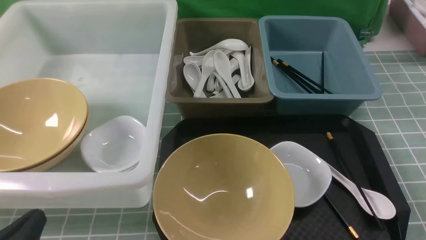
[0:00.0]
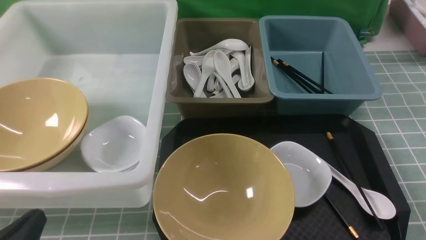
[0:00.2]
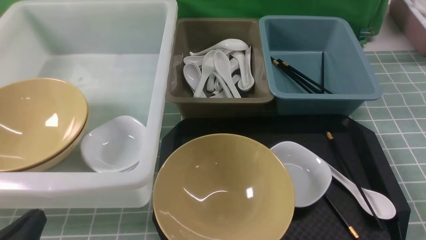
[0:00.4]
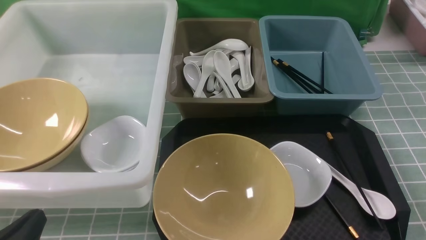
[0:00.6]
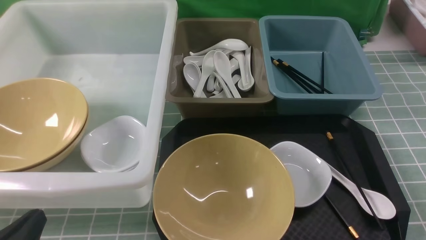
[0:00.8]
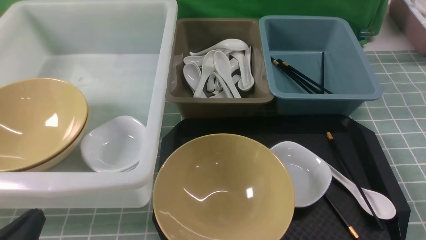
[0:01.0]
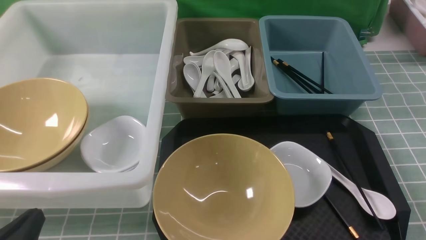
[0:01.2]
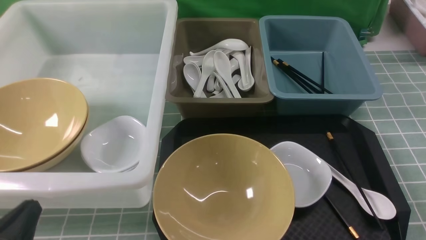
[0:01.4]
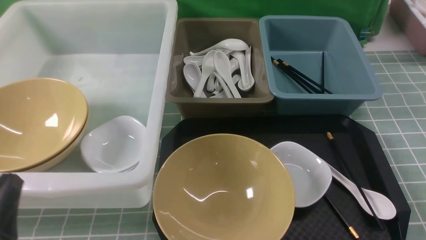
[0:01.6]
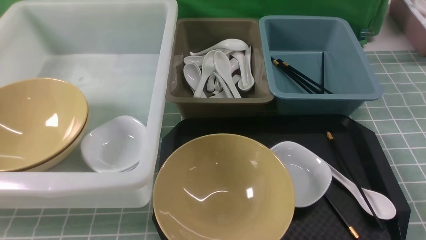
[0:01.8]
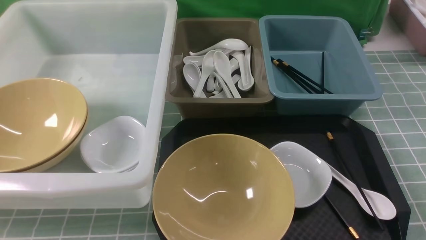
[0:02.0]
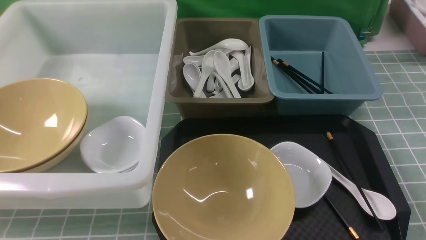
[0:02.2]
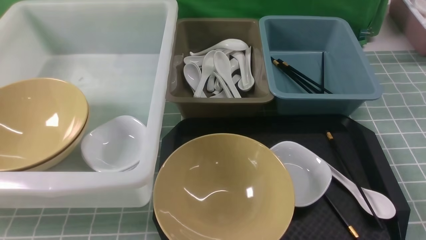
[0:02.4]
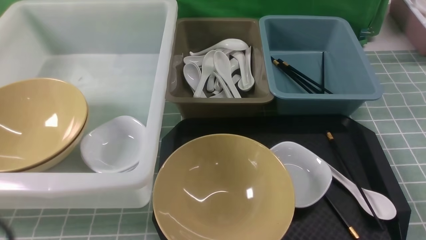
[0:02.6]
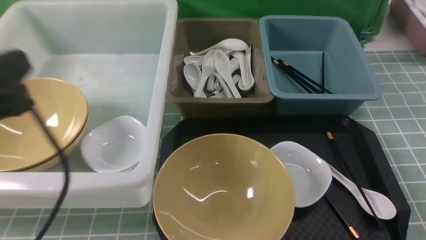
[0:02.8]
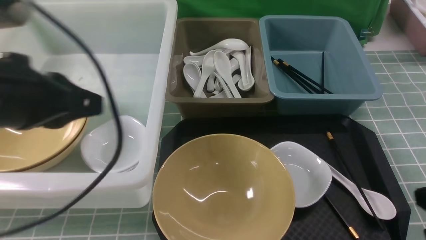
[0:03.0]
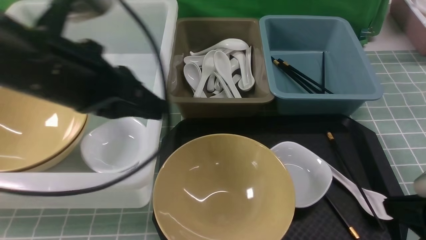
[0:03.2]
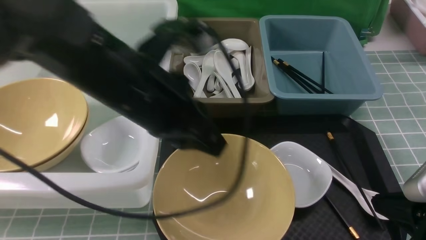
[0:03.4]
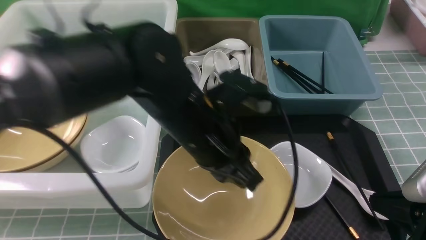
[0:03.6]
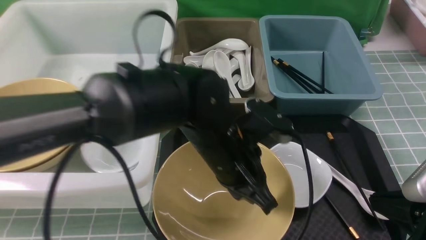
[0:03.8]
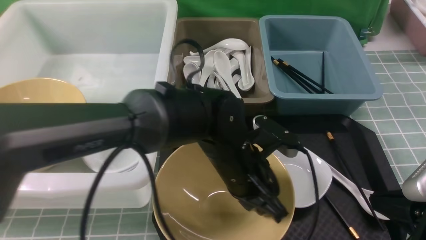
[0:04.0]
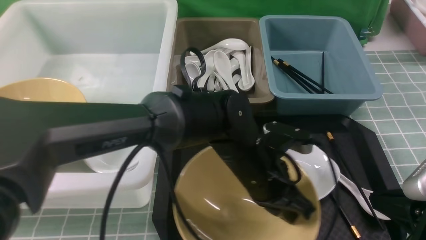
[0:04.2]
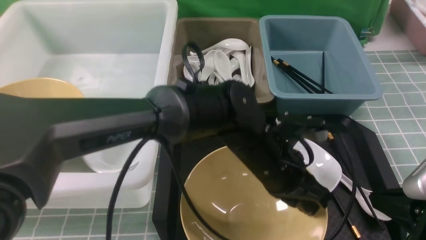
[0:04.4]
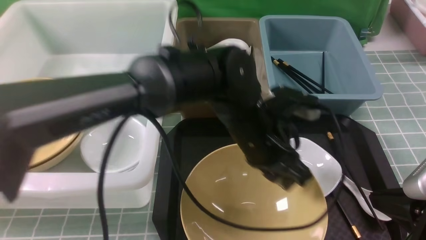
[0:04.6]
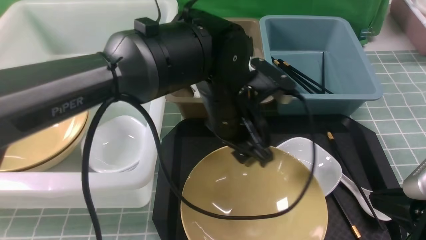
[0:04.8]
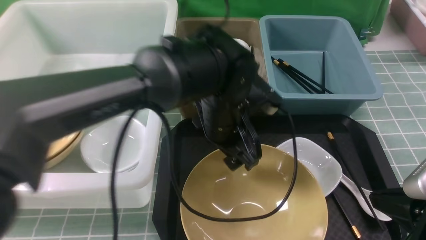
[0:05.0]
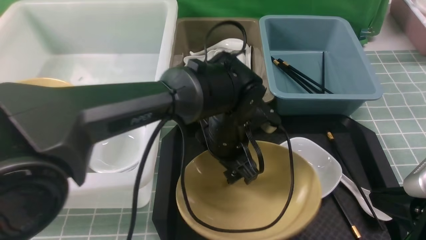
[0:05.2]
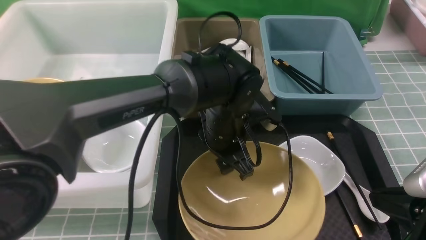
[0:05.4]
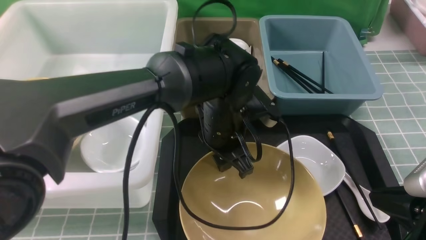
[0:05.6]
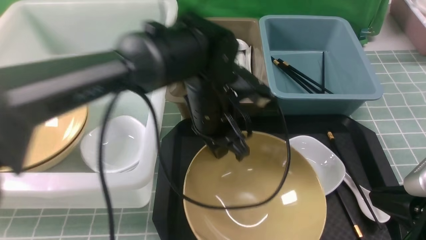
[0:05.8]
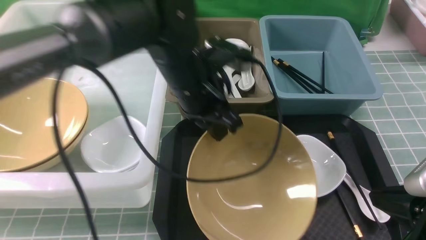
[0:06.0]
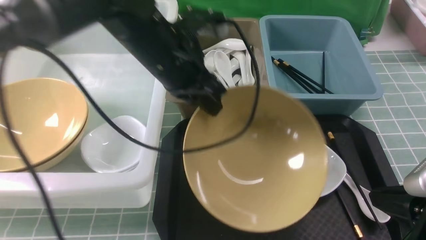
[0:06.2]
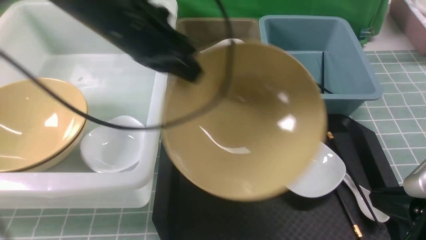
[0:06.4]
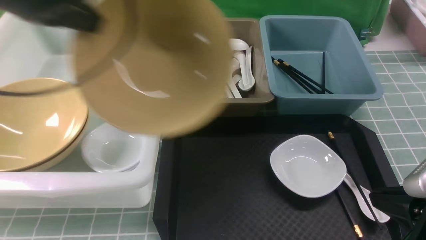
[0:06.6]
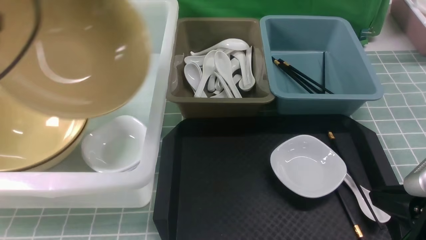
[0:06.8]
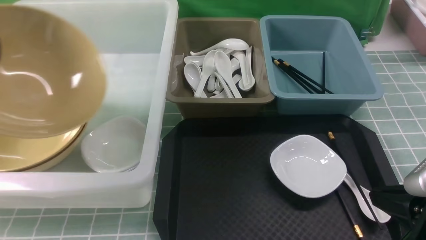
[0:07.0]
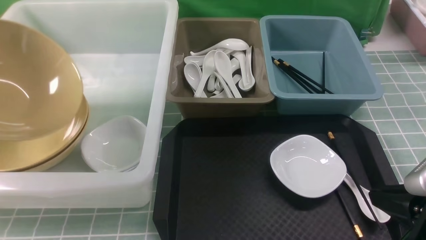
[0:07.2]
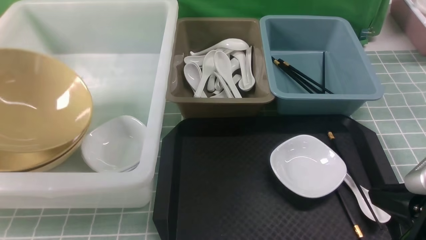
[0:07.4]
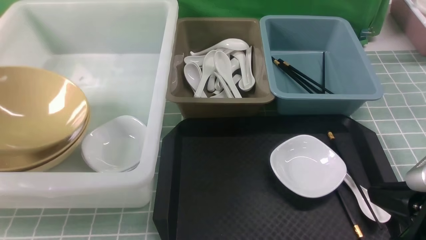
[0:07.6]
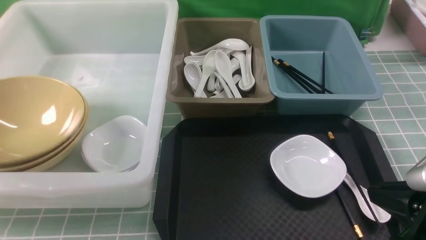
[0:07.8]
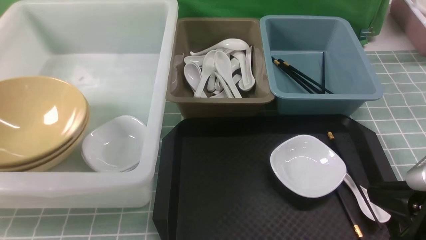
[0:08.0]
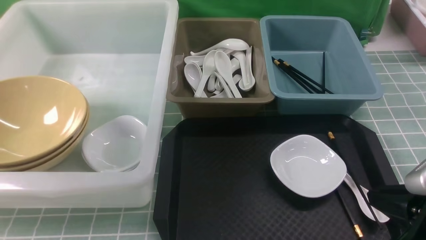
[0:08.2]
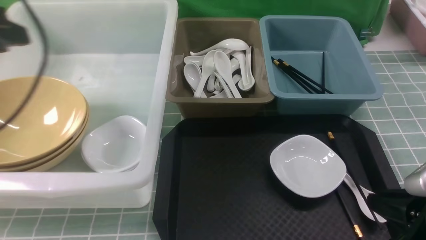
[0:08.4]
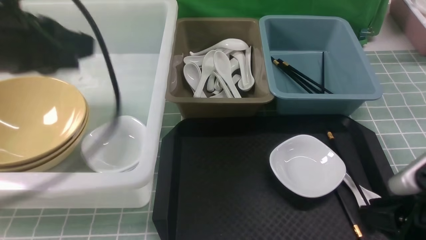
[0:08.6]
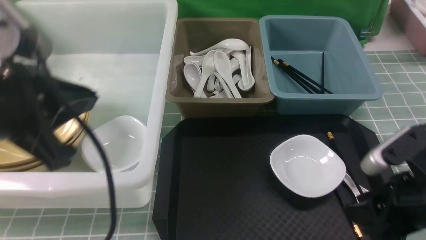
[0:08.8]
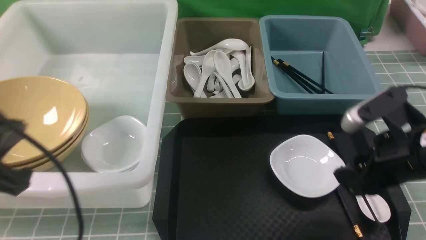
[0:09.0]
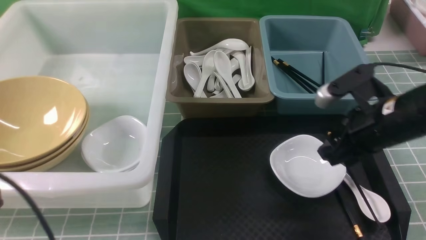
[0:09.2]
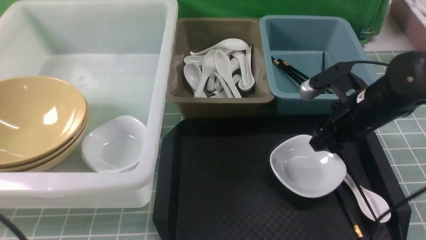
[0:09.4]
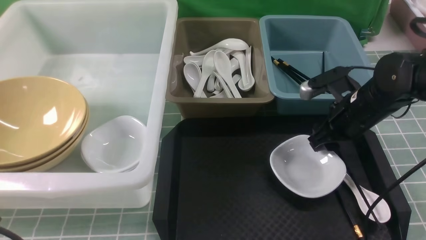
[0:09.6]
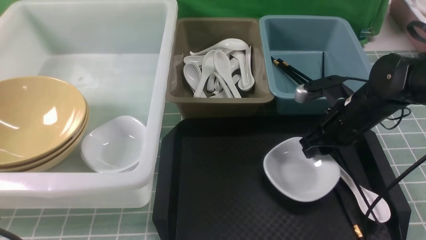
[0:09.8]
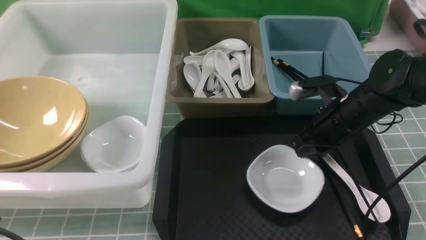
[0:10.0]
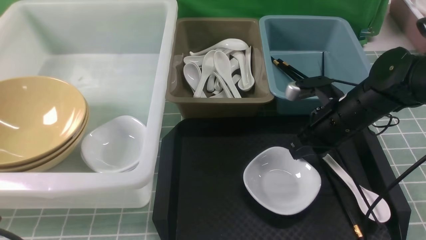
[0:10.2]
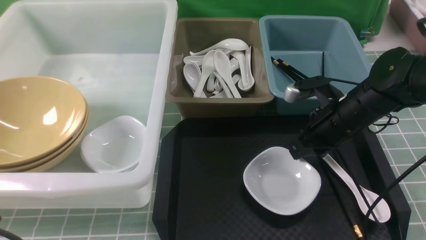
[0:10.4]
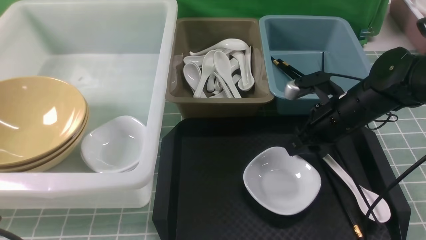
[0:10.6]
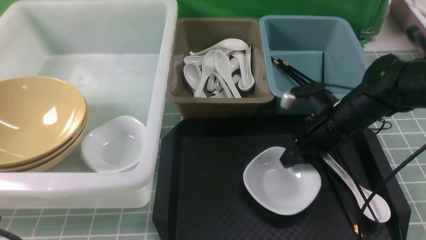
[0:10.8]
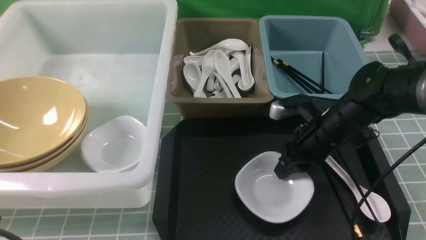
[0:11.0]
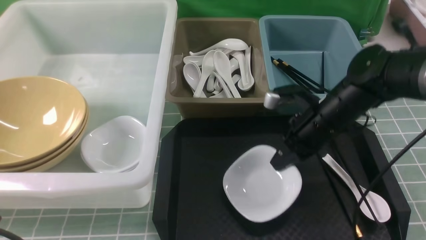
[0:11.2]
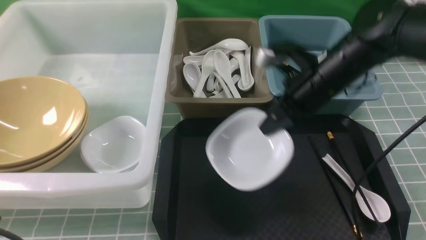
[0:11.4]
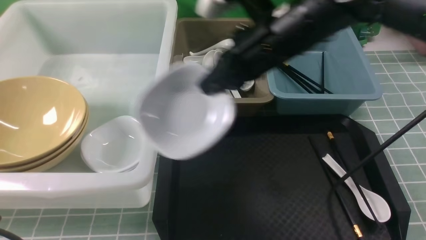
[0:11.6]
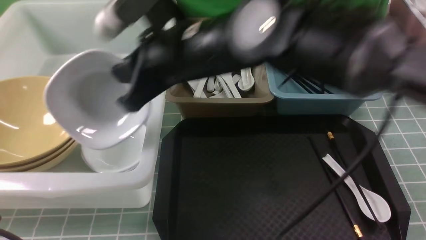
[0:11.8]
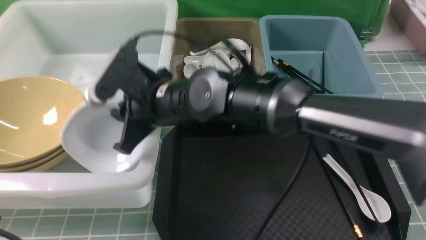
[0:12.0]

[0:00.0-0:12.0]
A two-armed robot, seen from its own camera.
Task of the whole recording: on blue table put chopsticks spoon bowls plates into blue grey white boxes.
Step, 0.0 to 6.0 s: use the left arm to grab the yellow noodle bowl on the left.
Step, 6.2 to 8.0 s: use the left arm to put the noodle bowl into the large storage box on the left.
Step, 8.2 to 11.2 s: use the right arm to grab the plate.
1.6 to 3.0 s: The right gripper heads forward, covering roughly 5 cm, and reaches roughly 10 cm upward, then returns, while the left gripper travels upward and forward by roughly 20 cm.
3.0 to 4.4 s: The left gripper heads to the right and downward, covering approximately 30 cm.
4.4 to 6.0 s: The left gripper moves to the left, upward and forward, approximately 15 cm, and opens and closes again.
6.0 to 7.6 s: The left gripper travels to the left by approximately 35 cm, and opens.
7.6 to 9.0 s: The left gripper goes approximately 20 cm to the right and backward, and closes its fingers; the right gripper moves forward, some 10 cm, and opens up.
9.0 to 10.4 s: The right gripper moves forward and downward, some 15 cm, and closes; the left gripper shifts roughly 10 cm backward and downward.
10.4 to 12.0 s: The right gripper travels to the left by about 25 cm, and opens, then closes again.

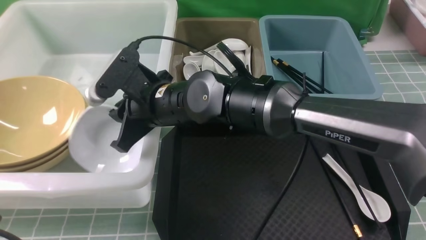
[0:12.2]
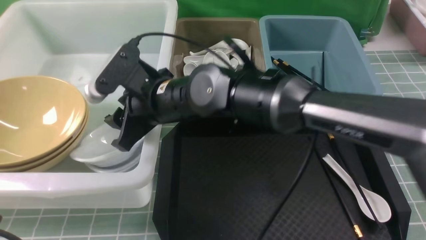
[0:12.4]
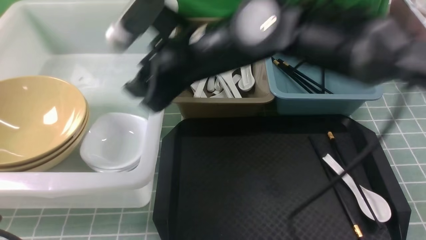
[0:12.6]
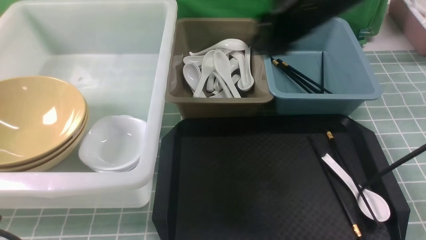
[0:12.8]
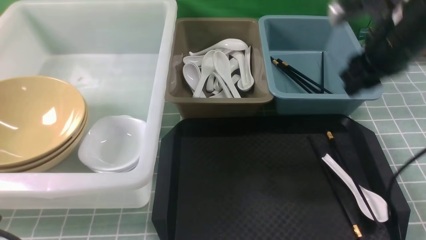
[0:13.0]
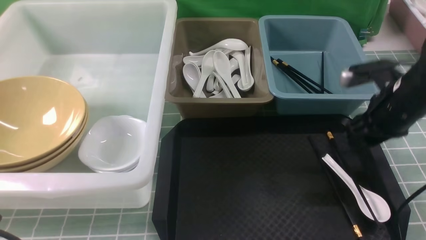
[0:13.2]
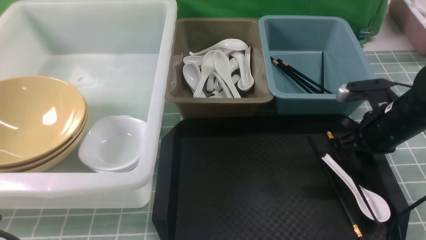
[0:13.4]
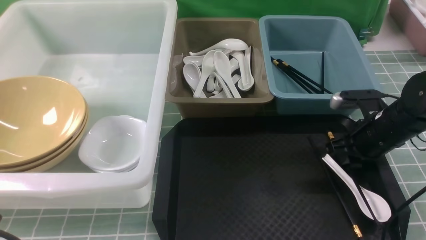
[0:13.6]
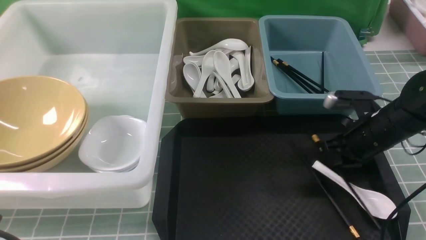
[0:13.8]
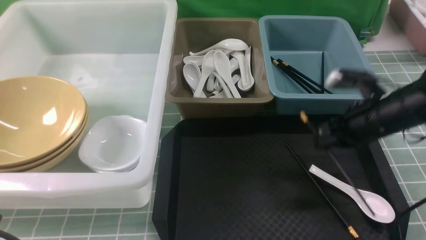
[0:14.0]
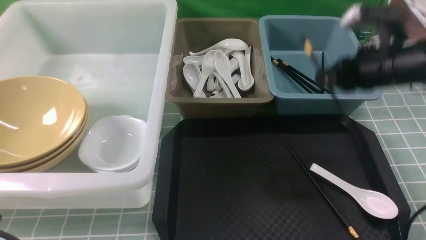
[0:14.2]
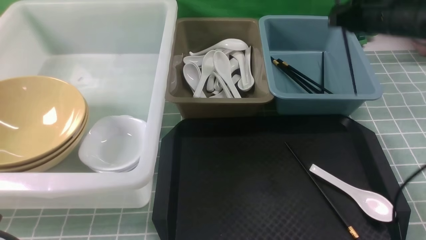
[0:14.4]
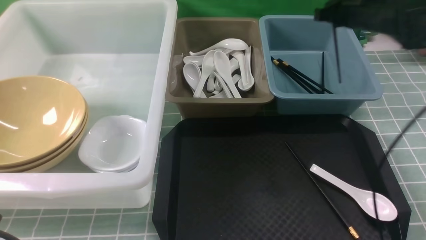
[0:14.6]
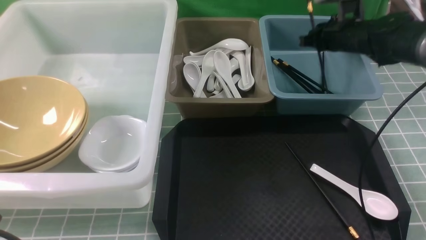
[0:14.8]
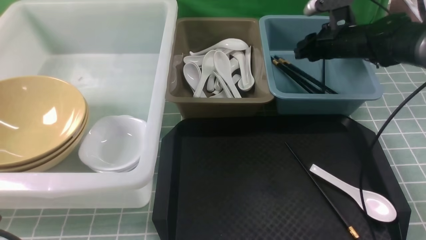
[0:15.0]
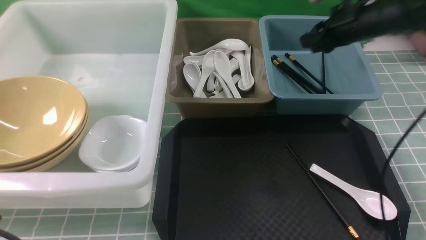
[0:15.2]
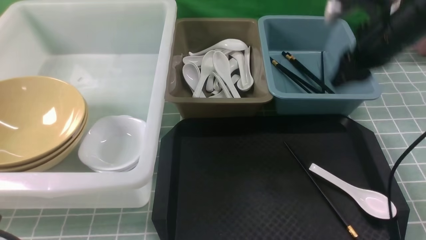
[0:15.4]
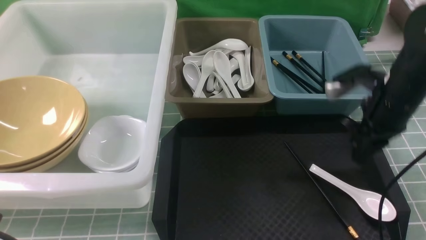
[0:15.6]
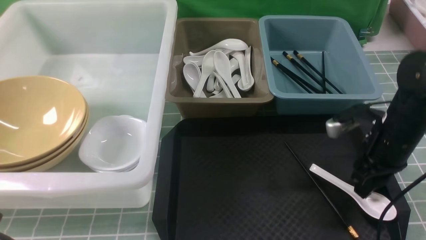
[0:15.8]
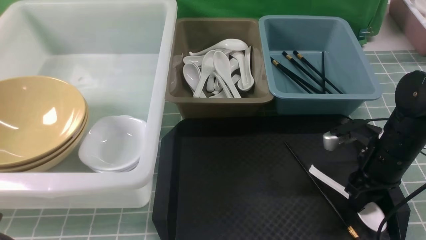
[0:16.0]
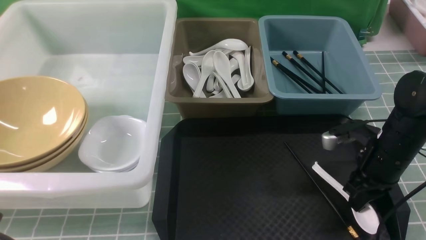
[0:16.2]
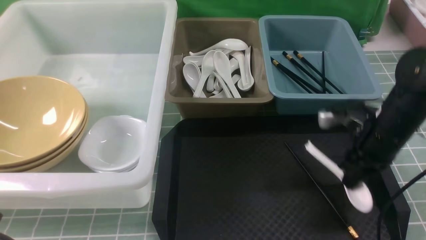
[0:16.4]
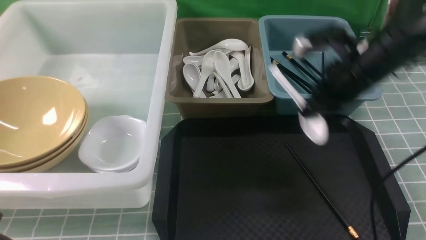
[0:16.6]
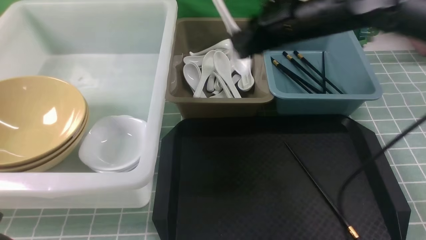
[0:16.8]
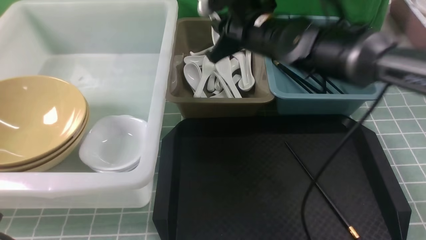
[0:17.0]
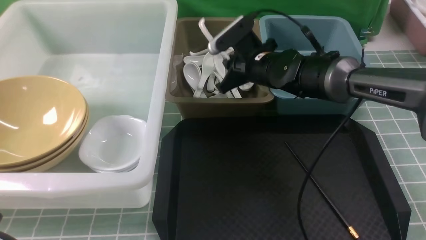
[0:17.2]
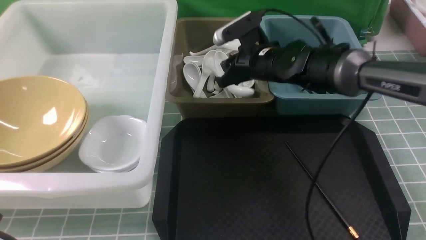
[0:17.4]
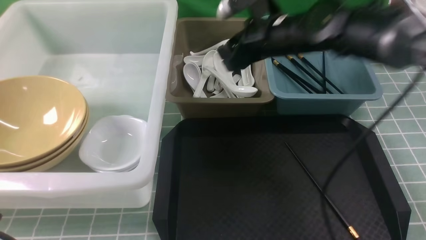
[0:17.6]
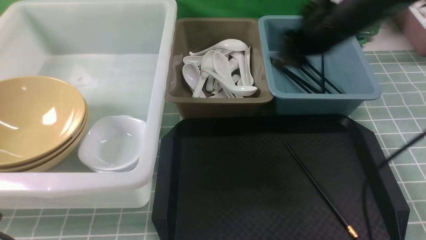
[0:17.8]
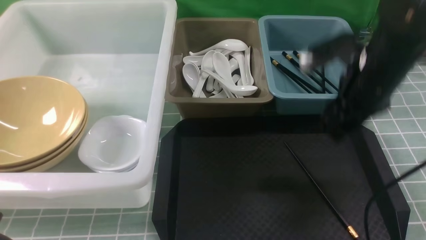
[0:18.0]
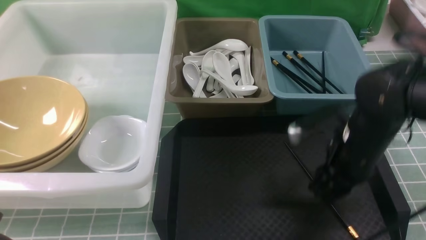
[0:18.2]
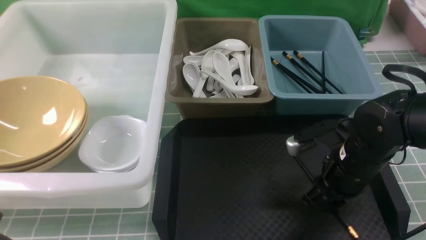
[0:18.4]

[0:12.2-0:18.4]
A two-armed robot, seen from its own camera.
Task of the whole recording: on blue table put chopsticks spoon bowls plates into blue grey white boxes.
Step, 12.6 to 14.0 s: use the right arm to grab a chopstick.
Step, 14.4 to 15.0 s: use the right arm to put a chopstick into the small storage box on the right.
Step, 15.4 to 16.4 s: use the right arm to grab the soup spoon in the middle.
Step, 16.6 to 17.4 s: use the right arm to put the soup spoon into the small storage box in the middle.
12.2 to 13.8 s: The right gripper goes approximately 30 cm to the right, and opens and closes again.
13.8 to 15.4 s: The right gripper goes some 10 cm upward, goes forward and returns, some 15 cm each way, and opens its fingers.
15.4 to 16.8 s: The right gripper travels to the left by some 15 cm, and closes up.
16.8 to 18.4 s: The right gripper goes some 20 cm backward, downward and to the right, and opens, then closes once more.
